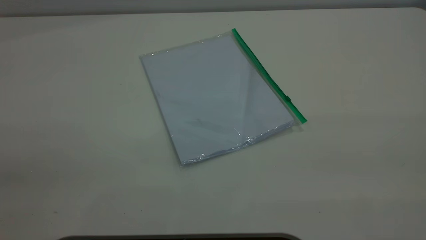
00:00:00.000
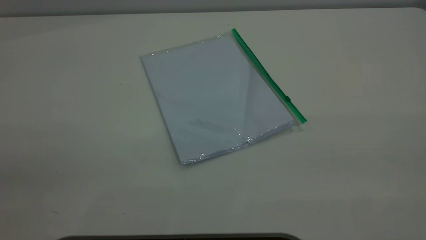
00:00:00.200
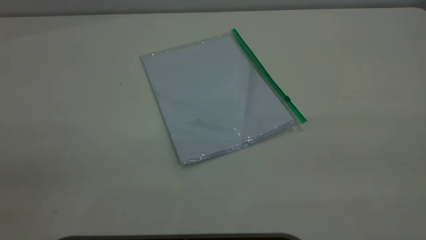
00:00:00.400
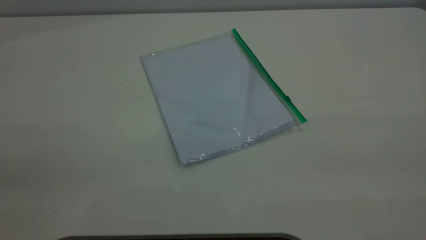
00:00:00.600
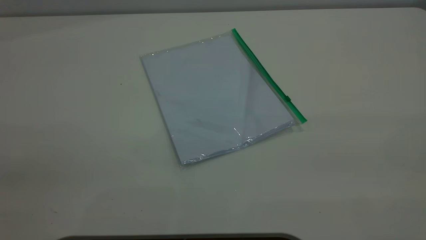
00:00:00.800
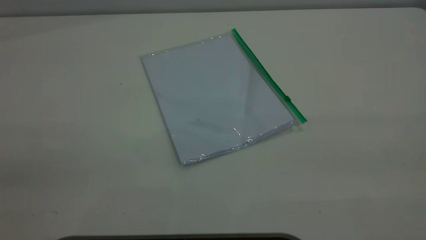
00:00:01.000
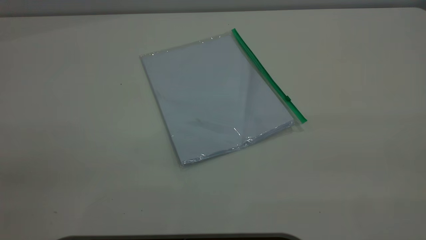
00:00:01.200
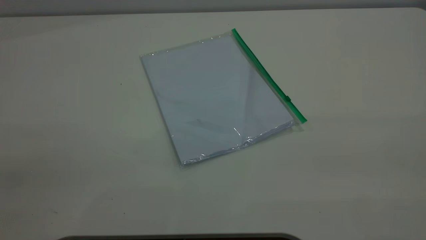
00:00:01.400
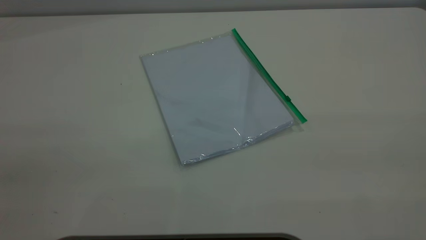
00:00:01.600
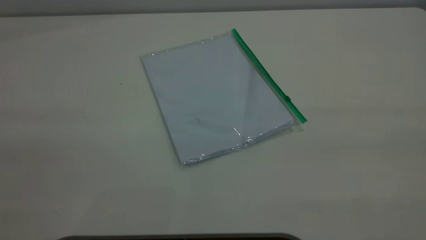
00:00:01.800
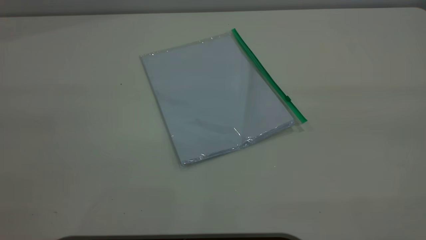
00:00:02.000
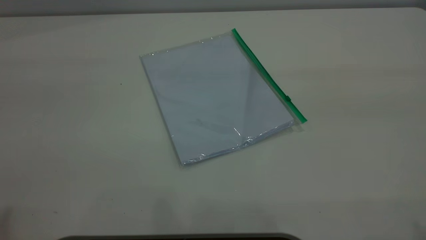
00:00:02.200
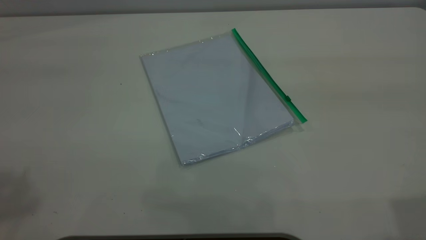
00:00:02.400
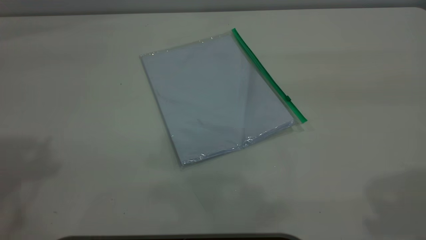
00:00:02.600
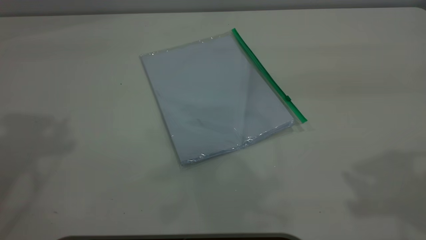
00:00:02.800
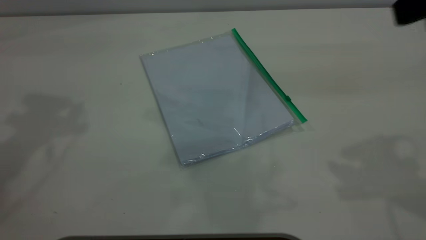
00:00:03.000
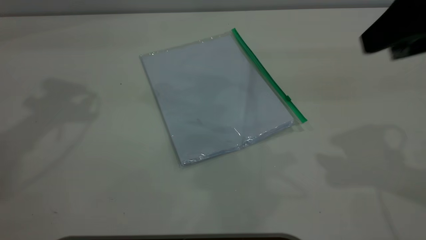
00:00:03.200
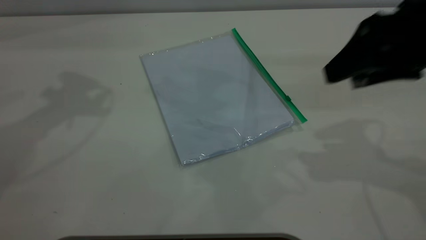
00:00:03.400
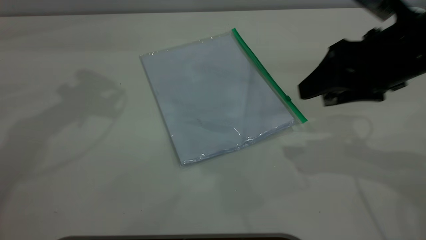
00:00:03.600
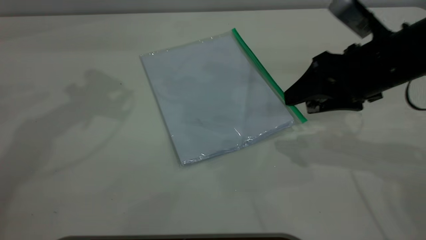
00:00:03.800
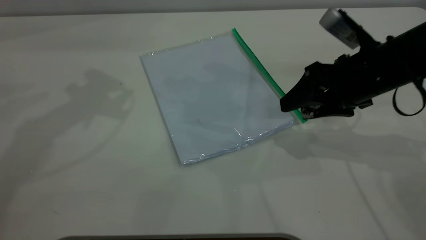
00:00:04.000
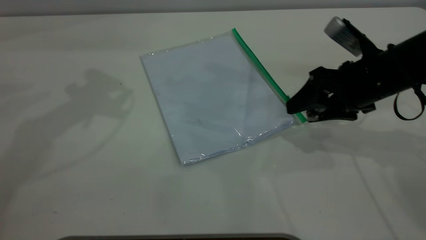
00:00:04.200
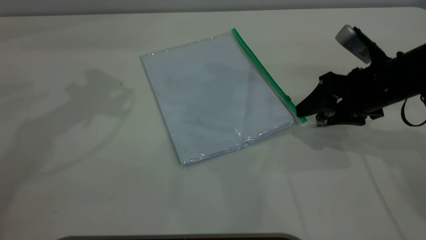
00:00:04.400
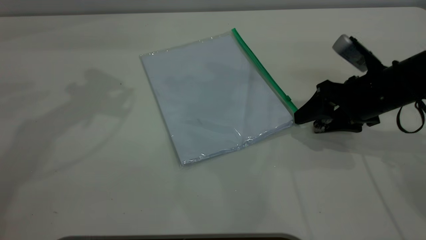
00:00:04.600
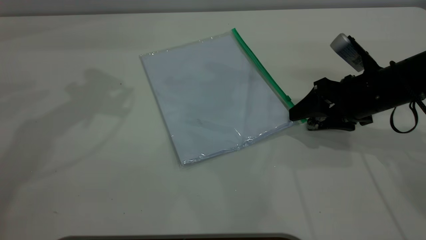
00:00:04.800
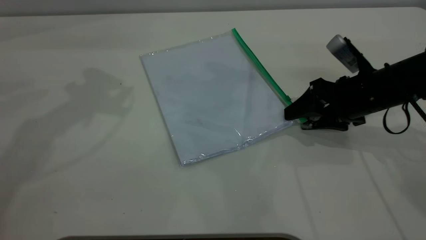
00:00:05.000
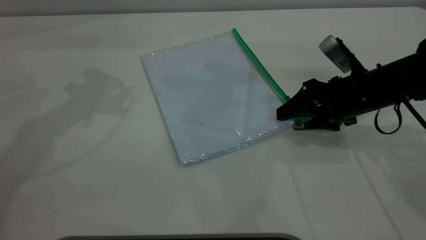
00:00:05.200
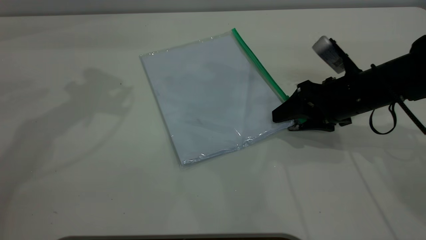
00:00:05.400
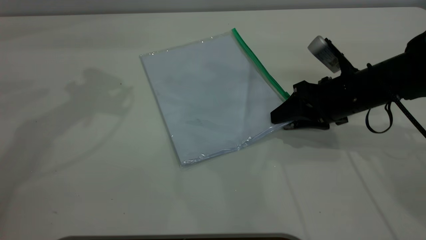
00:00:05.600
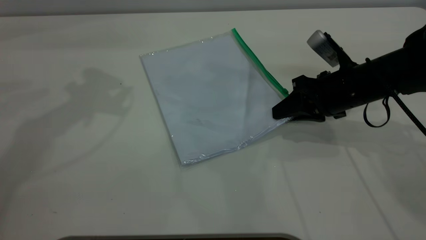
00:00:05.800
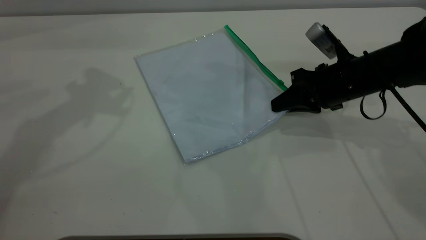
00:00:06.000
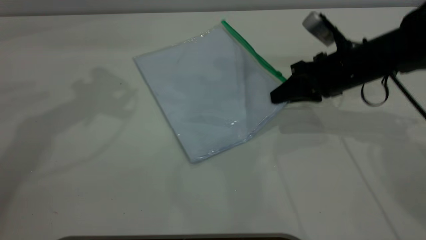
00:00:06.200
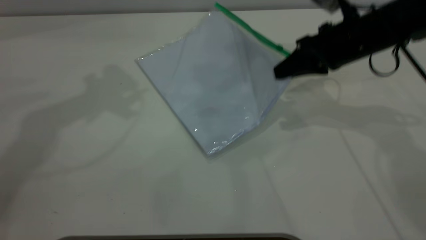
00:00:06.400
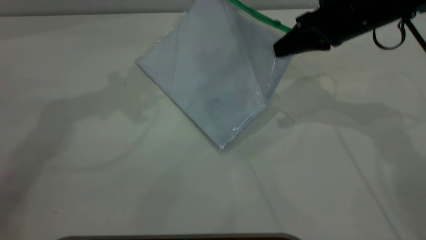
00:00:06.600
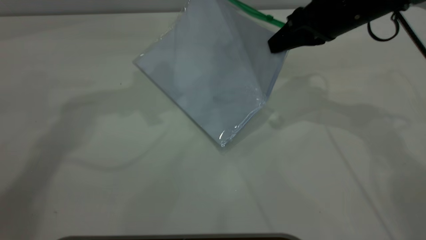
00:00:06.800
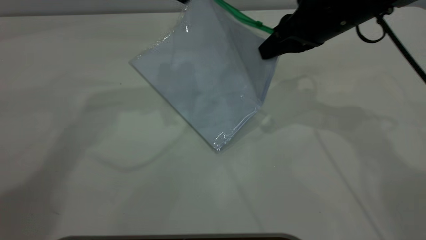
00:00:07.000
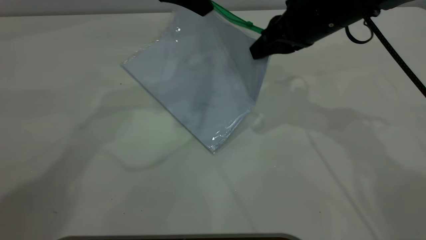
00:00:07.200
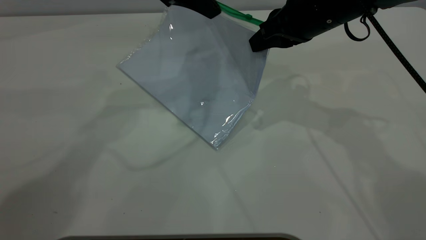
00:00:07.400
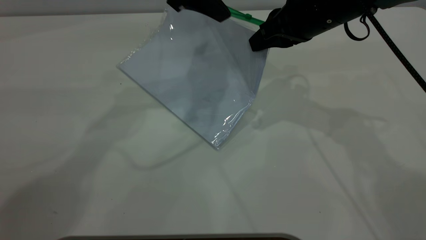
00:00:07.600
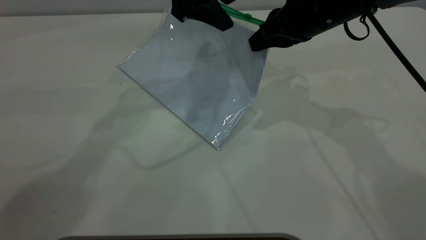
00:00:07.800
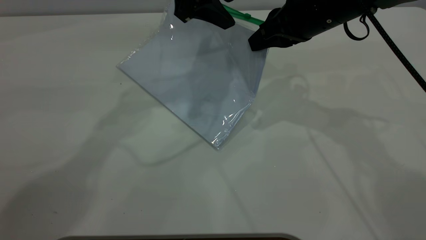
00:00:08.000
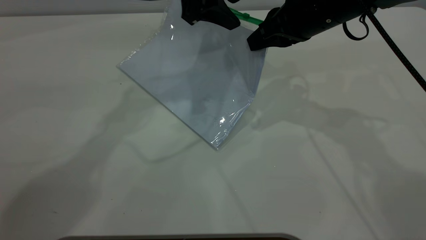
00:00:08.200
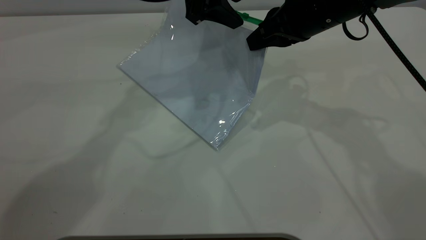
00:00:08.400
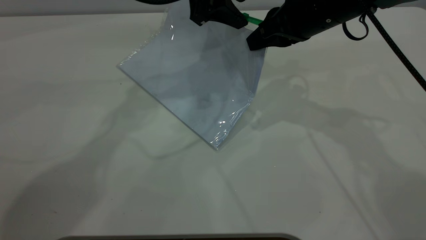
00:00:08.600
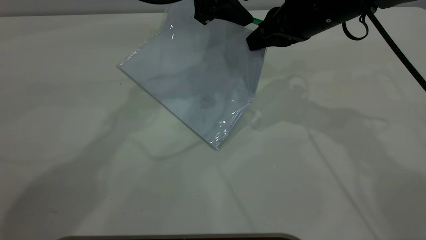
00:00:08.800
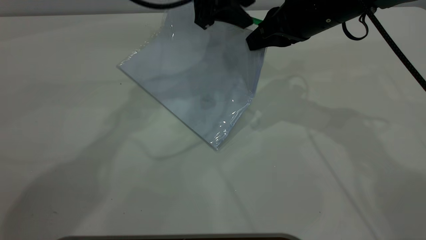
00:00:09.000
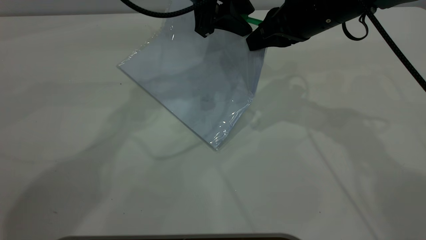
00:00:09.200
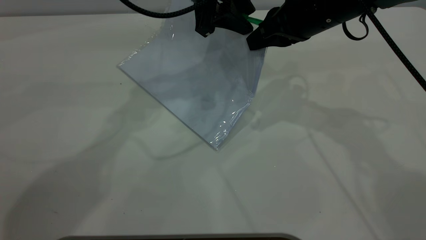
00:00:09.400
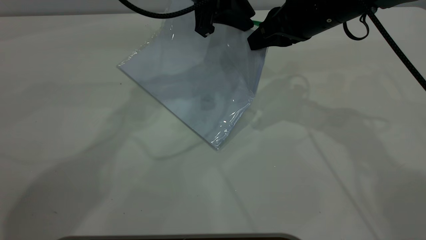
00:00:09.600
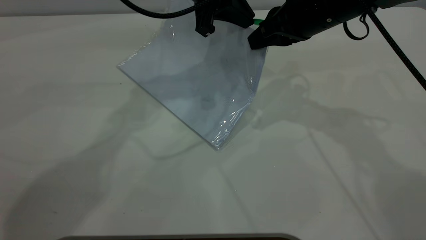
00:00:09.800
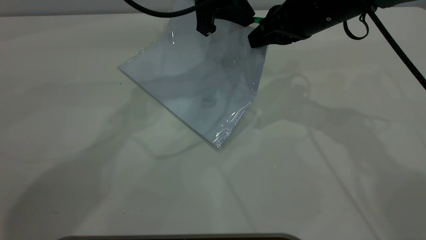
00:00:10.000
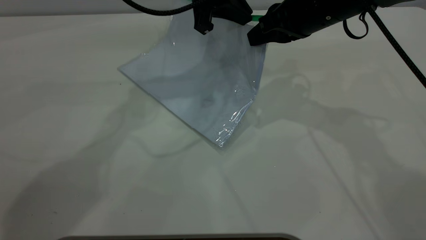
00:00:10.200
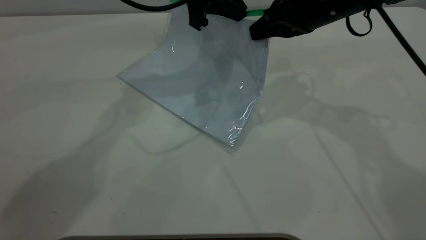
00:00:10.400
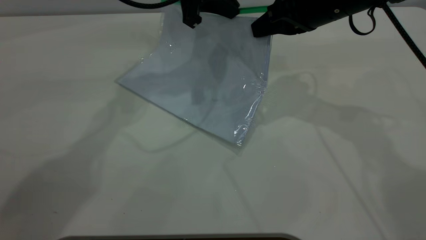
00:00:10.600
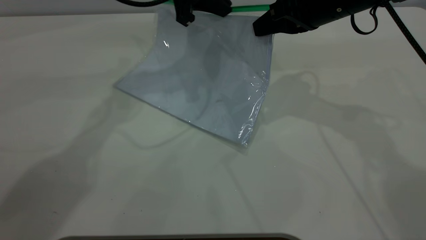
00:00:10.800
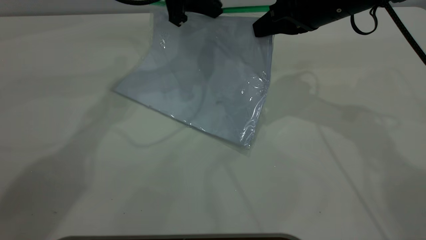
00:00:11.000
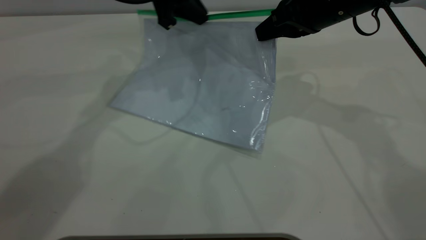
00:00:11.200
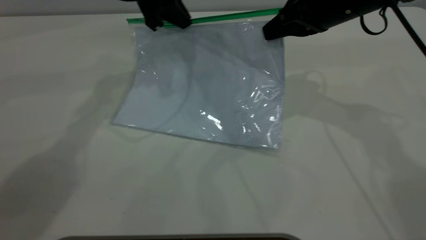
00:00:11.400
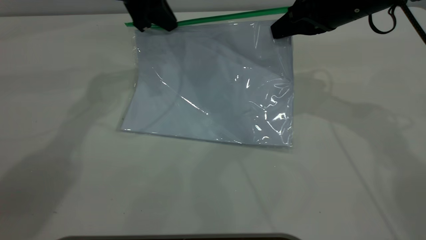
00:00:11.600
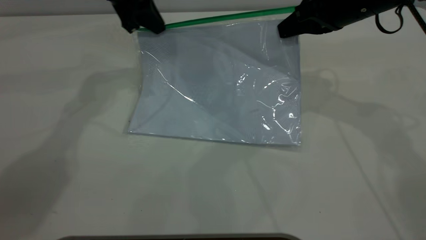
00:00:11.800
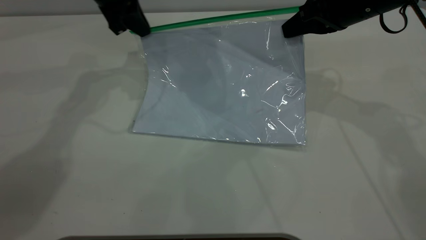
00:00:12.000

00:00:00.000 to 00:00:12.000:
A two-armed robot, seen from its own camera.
Step, 00:00:00.000 to 00:00:06.800: Pick up the transparent plastic bag with the right gripper.
00:00:00.000 to 00:00:01.600: Both grippers stay put.
00:00:01.600 to 00:00:03.000: The right gripper goes approximately 25 cm forward.
00:00:03.000 to 00:00:04.400: The right gripper shifts some 25 cm downward.
00:00:04.400 to 00:00:06.000: The right gripper shifts by some 5 cm, and closes up.
00:00:06.000 to 00:00:07.600: The left gripper heads to the right, covering about 15 cm; the right gripper heads upward and to the left, covering roughly 10 cm.
00:00:07.600 to 00:00:09.000: There are only small adjustments of the grippers.
00:00:09.000 to 00:00:10.400: The left gripper closes its fingers.
00:00:10.400 to 00:00:12.000: The left gripper shifts some 10 cm to the left, while the right gripper moves approximately 5 cm.

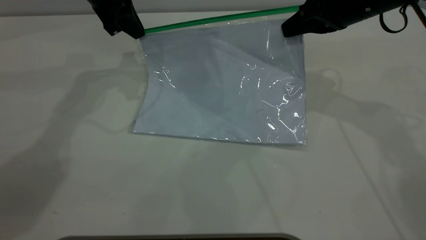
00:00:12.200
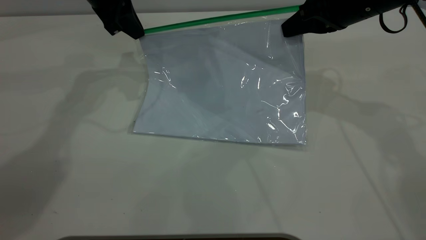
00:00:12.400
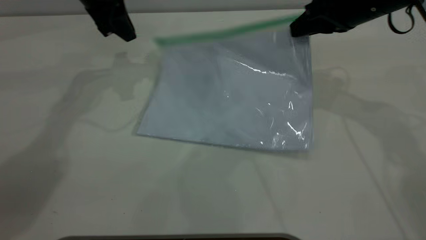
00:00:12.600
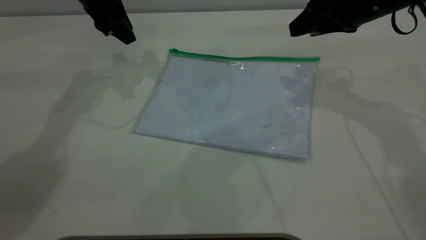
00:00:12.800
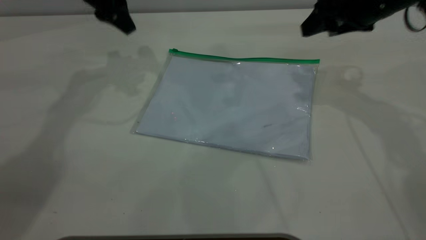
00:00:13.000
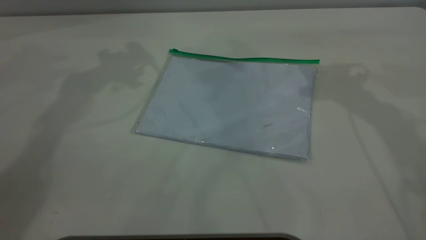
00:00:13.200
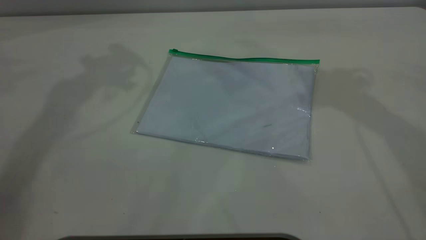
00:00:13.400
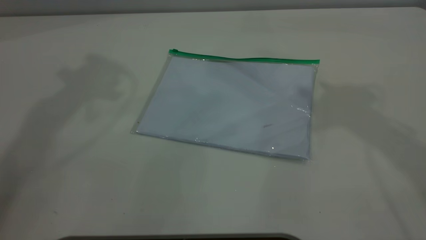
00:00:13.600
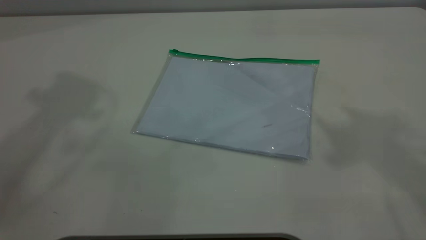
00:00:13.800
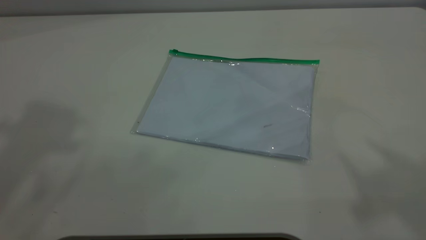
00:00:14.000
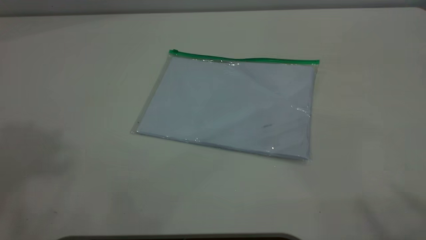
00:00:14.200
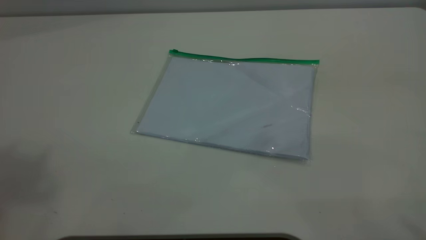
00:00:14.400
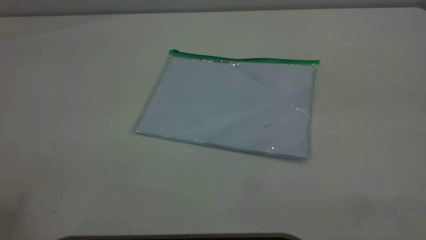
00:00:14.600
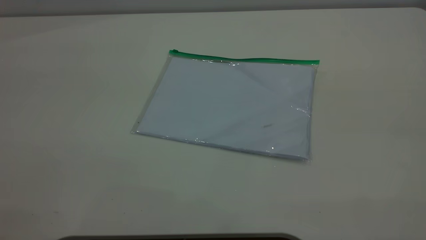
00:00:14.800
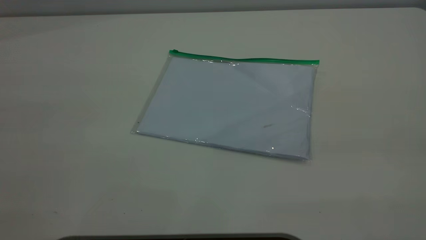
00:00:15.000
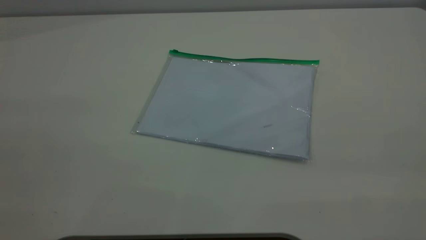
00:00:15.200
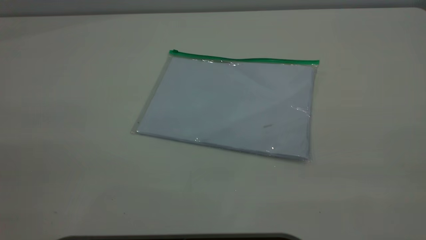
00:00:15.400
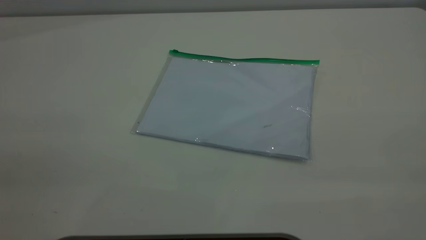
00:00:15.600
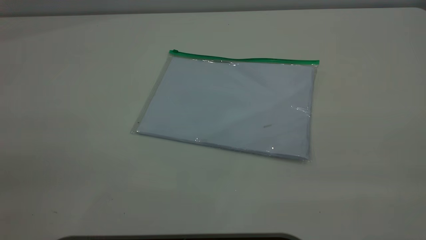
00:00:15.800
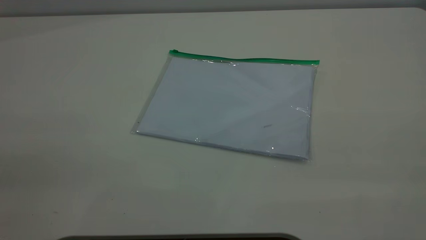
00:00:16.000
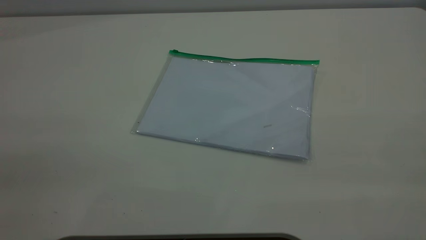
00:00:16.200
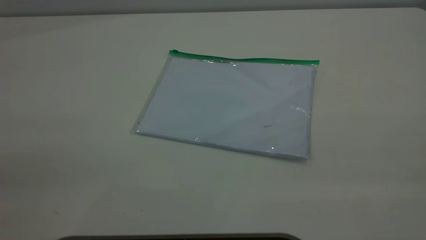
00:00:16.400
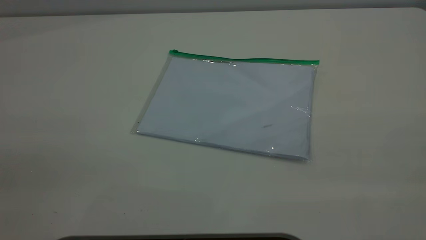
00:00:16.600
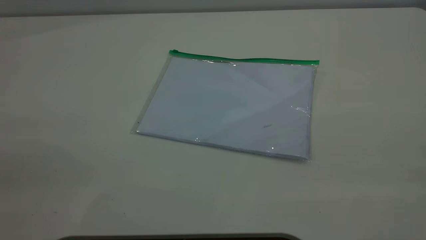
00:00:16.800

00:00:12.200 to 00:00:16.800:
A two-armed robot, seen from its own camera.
Step, 00:00:12.600 to 00:00:13.600: Place the transparent plastic bag.
00:00:12.200 to 00:00:13.800: The grippers both shift upward and backward by approximately 35 cm. The right gripper opens its fingers; the left gripper opens its fingers.
